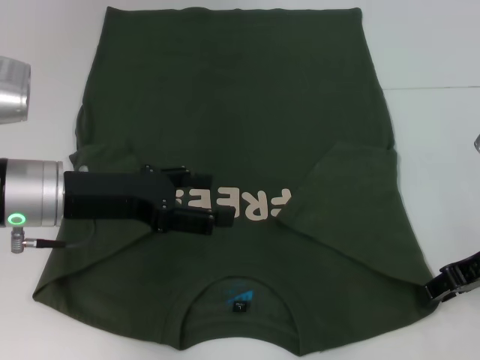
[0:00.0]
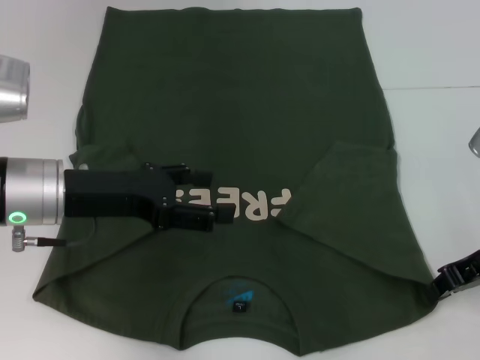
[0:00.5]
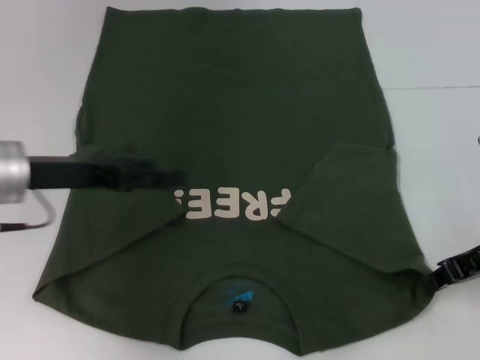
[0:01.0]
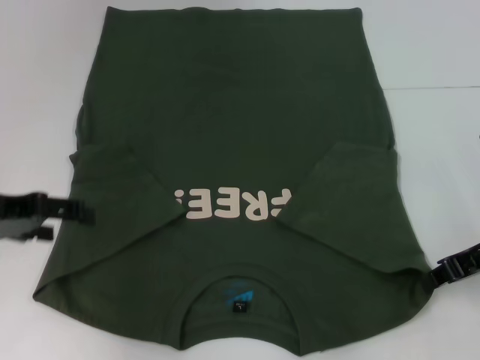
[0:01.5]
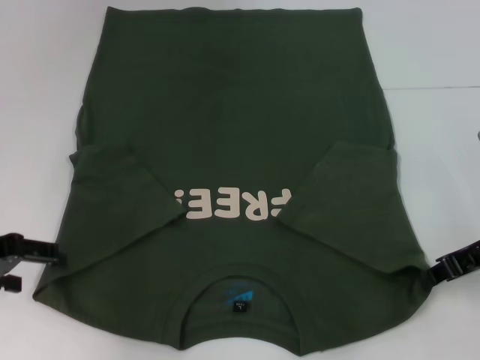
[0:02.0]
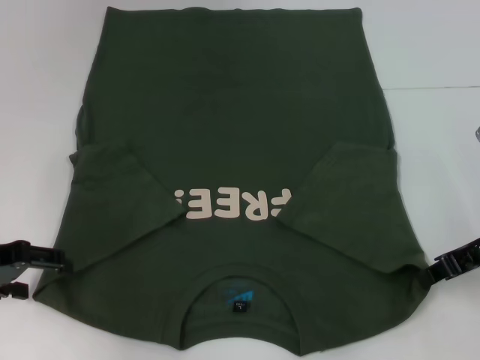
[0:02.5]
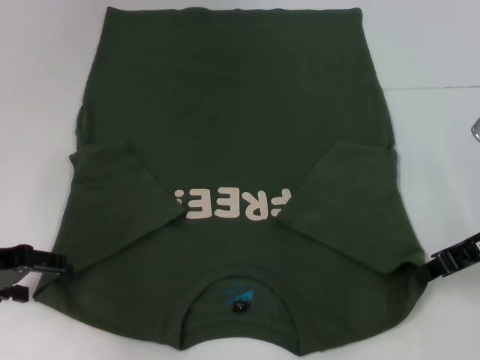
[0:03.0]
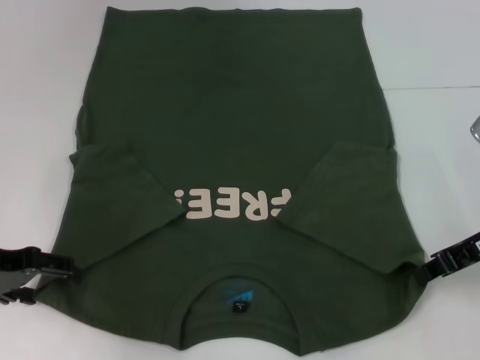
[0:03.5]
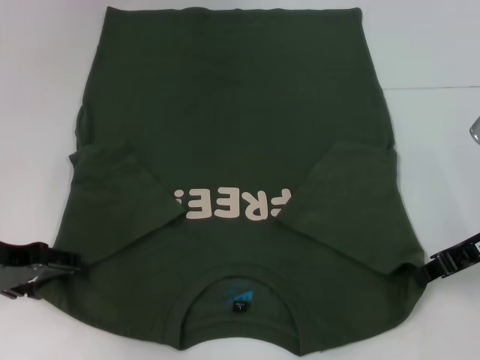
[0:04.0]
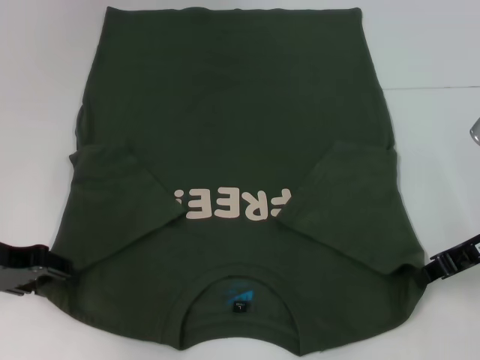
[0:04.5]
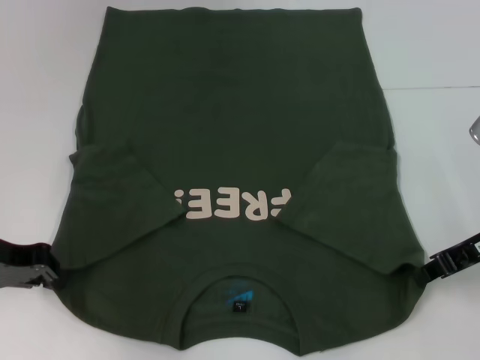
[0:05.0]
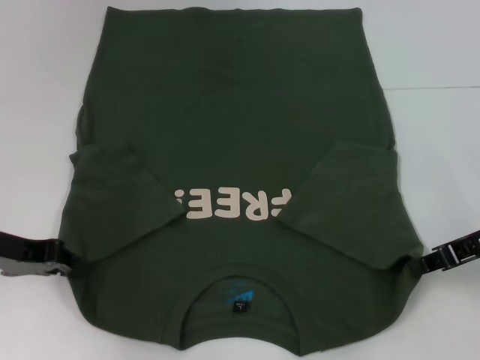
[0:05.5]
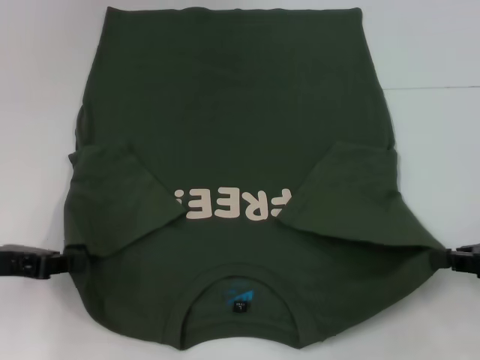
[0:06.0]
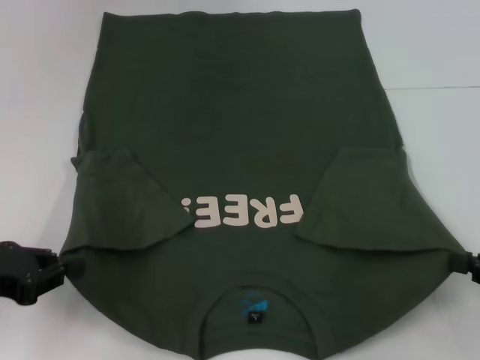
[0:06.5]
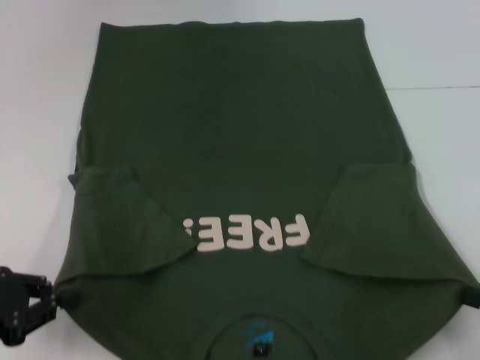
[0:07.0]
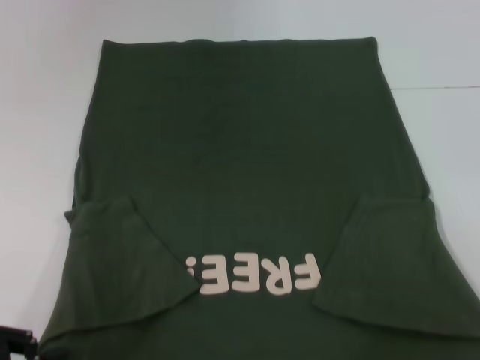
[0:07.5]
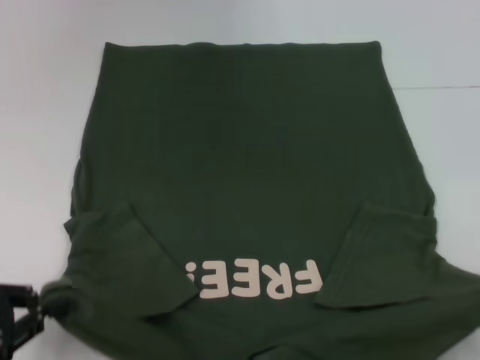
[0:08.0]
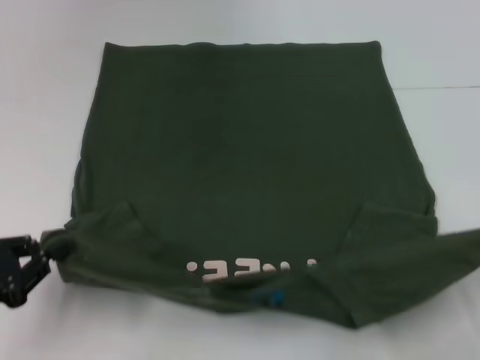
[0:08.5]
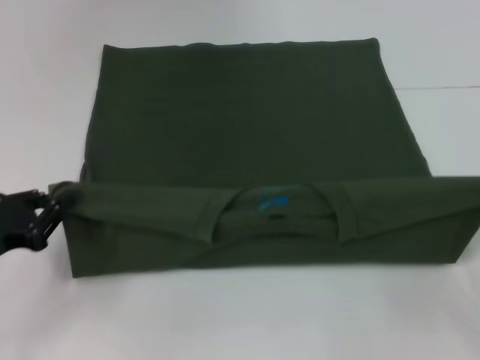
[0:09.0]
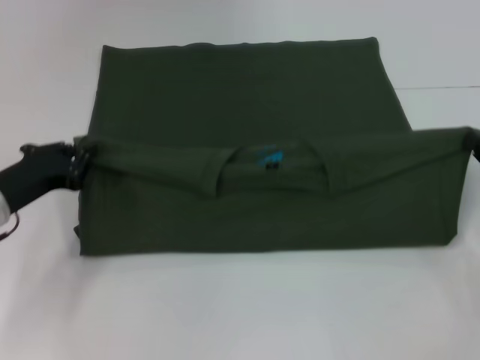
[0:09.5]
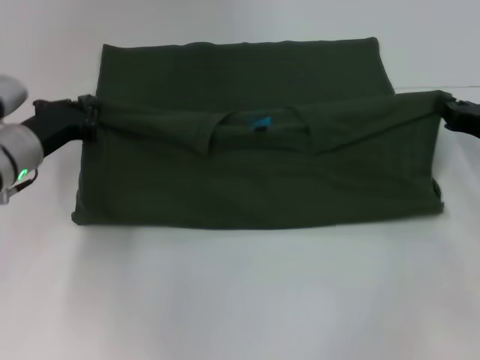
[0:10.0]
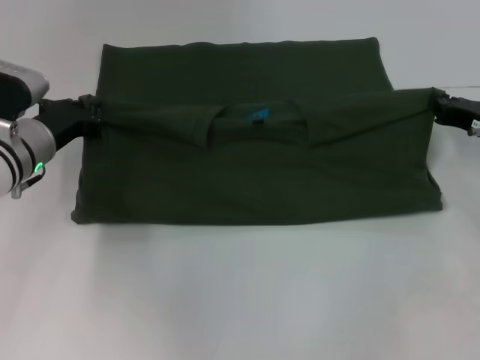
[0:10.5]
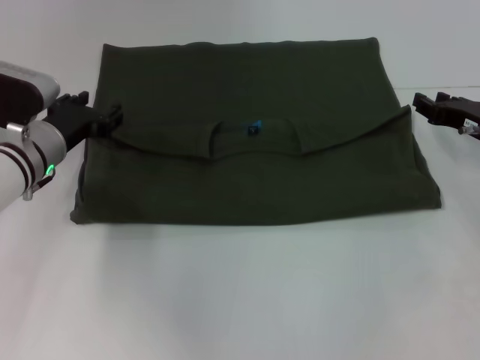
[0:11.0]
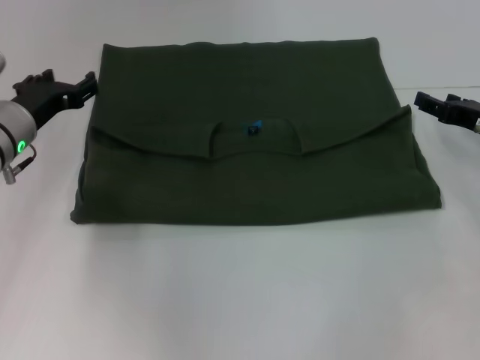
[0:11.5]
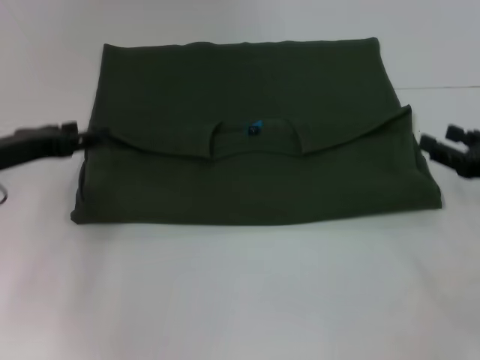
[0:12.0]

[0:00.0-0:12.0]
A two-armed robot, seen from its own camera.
Step, 1.5 to 5.0 s: Grab the bottom left corner with your left hand.
Step, 5.5 to 11.5 s: Fold the clothes with your left hand.
Step, 5.5 to 11.5 s: Fold the clothes with your right hand.
0.0 to 2.0 s: The right gripper closes its fingers; the left gripper is displaced to the left by approximately 10 cm.
2.0 to 4.0 s: The grippers stay close to where they were, moving slightly.
4.0 to 6.0 s: The right gripper heads to the right and backward, covering some 10 cm, while the left gripper closes.
6.0 to 8.0 s: The right gripper moves backward, some 15 cm; the left gripper heads backward, covering some 10 cm.
8.0 to 10.0 s: The right gripper moves forward, some 25 cm. The left gripper moves forward and to the right, about 20 cm.
10.0 to 12.0 s: The right gripper shifts roughly 5 cm backward, and opens up; the left gripper heads to the left, covering approximately 5 cm, and opens.

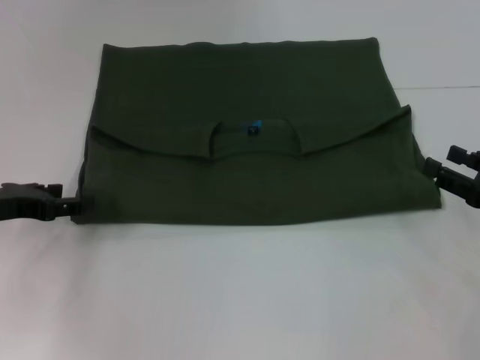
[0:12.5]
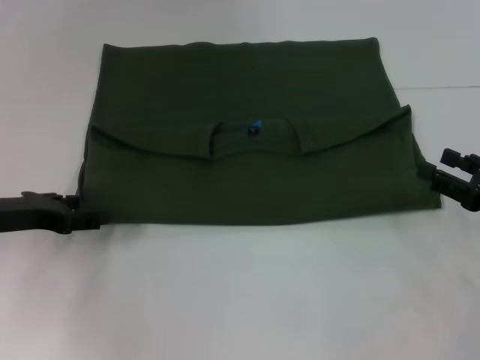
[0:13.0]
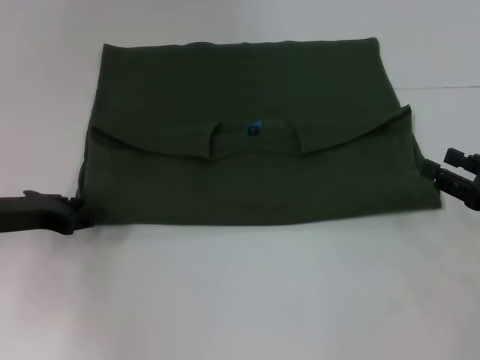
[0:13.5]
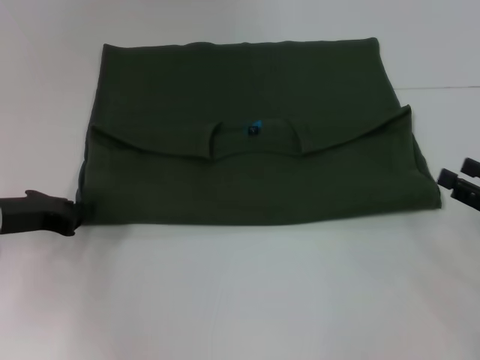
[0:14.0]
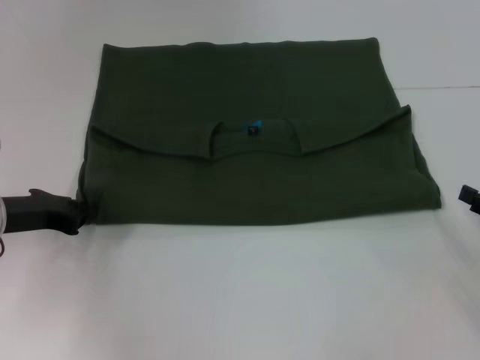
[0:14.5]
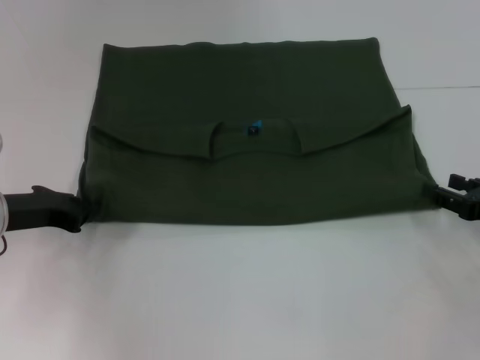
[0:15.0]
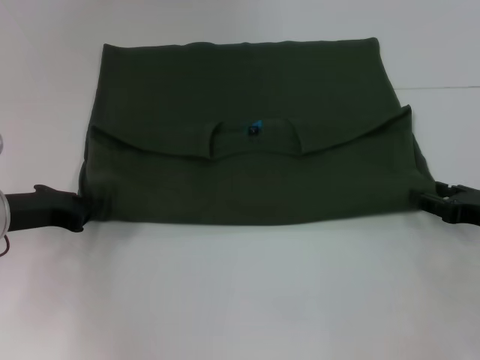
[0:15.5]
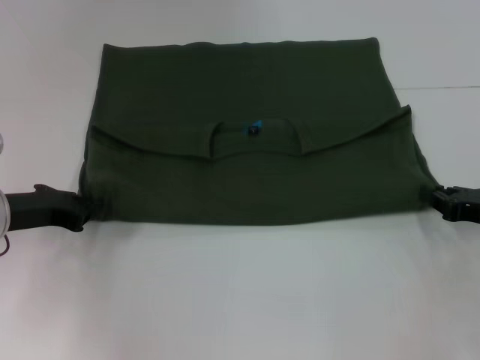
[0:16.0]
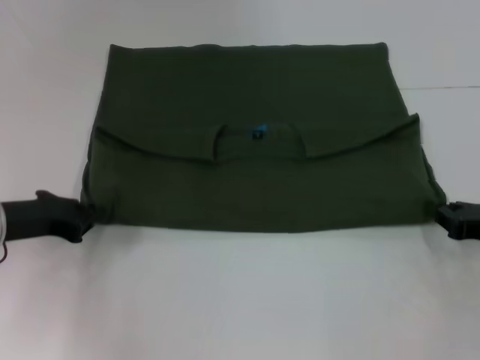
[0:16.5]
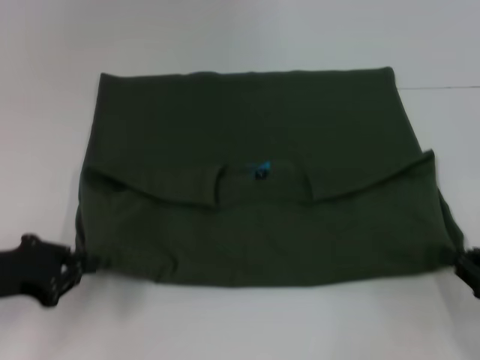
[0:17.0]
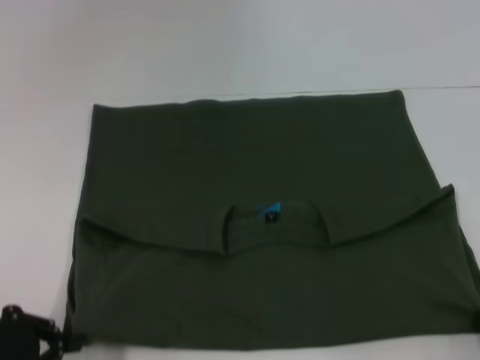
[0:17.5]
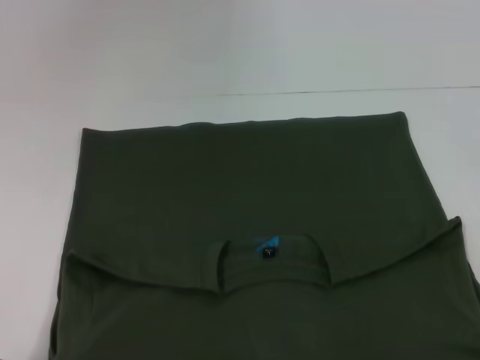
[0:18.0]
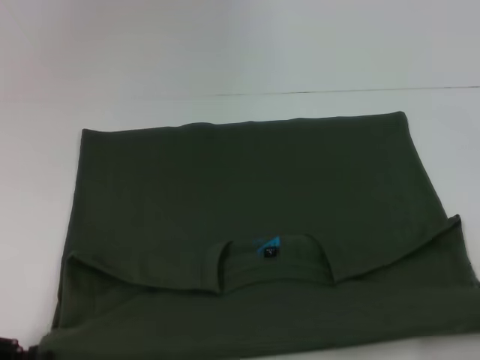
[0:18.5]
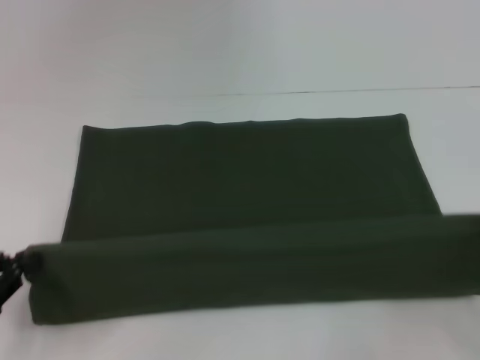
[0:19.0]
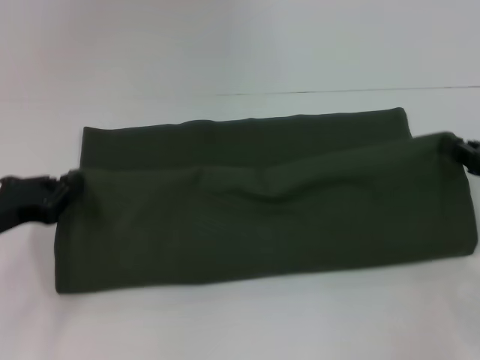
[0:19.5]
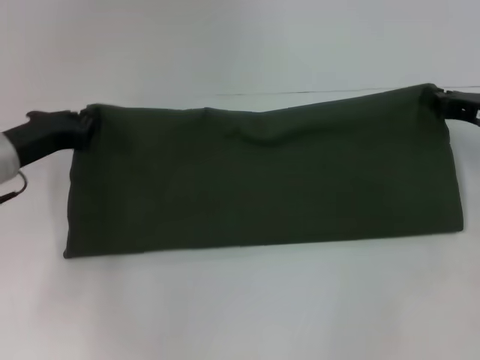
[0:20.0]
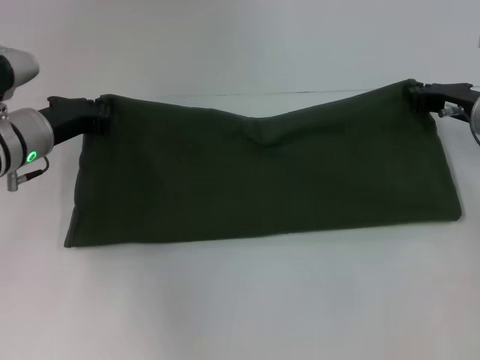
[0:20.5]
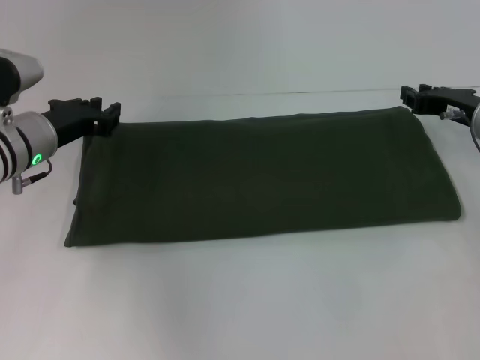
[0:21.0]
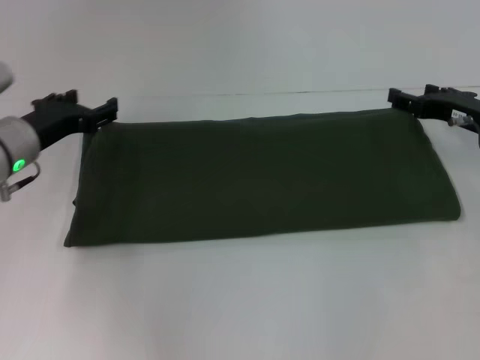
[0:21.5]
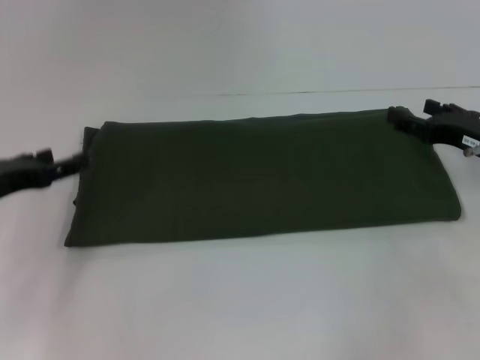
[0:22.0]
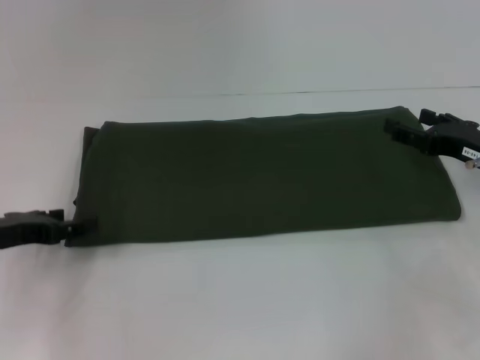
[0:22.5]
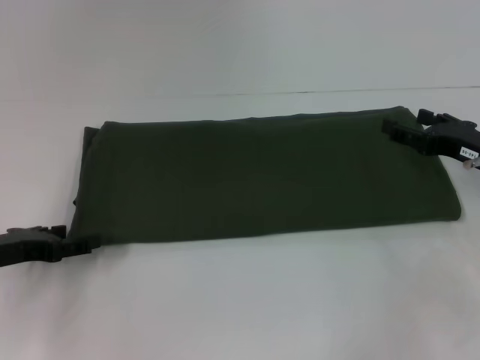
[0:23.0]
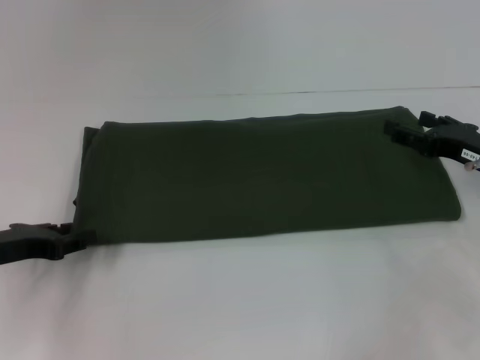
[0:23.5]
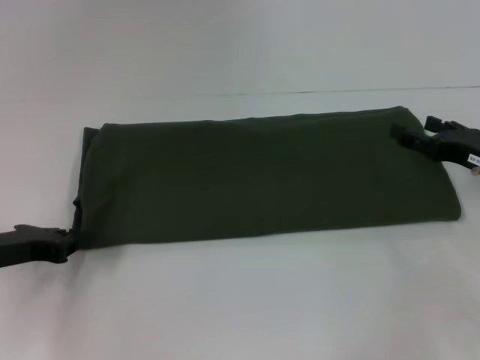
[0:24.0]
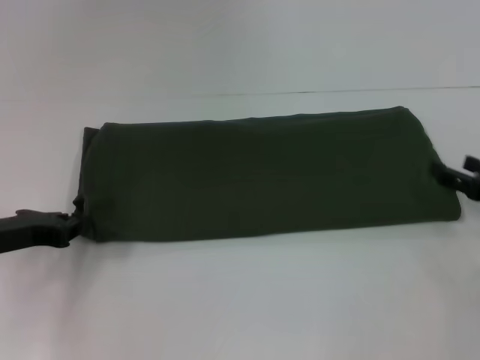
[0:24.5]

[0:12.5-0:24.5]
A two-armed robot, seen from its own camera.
Step, 12.5 to 18.0 s: Pull the clothes with your left hand.
Step, 12.5 to 18.0 s: Pull the clothes with your right hand.
Step, 18.5 to 21.0 s: Fold the clothes with your right hand.
12.5 to 14.5 s: The left gripper closes.
14.5 to 16.5 s: The right gripper moves approximately 5 cm, and closes up.
16.5 to 18.5 s: The two grippers go some 15 cm backward.
18.5 to 20.5 s: The right gripper travels forward by approximately 30 cm; the left gripper heads forward and to the right, covering some 25 cm.
20.5 to 22.5 s: The left gripper shifts about 10 cm backward and to the left, and opens; the right gripper moves backward, roughly 5 cm, and opens its fingers.
22.5 to 24.5 s: The left gripper closes up. Meanwhile the right gripper heads backward, covering roughly 5 cm.

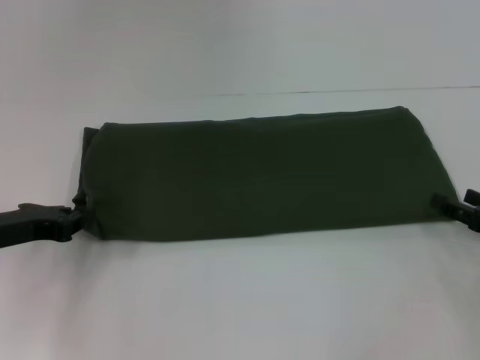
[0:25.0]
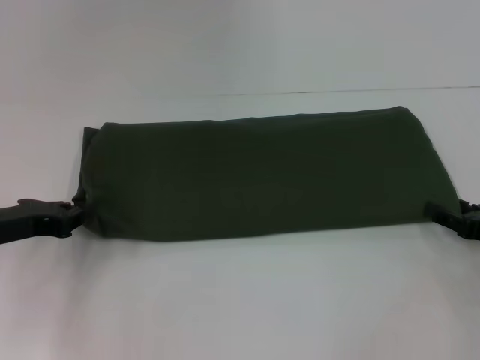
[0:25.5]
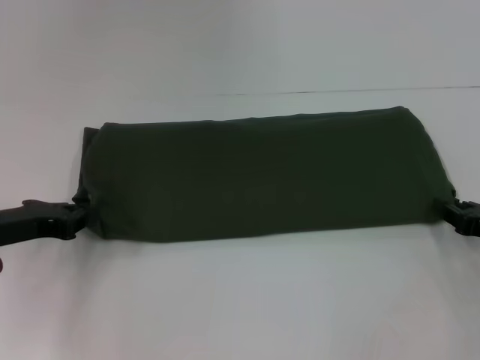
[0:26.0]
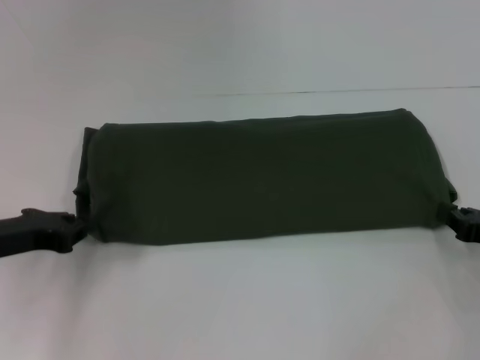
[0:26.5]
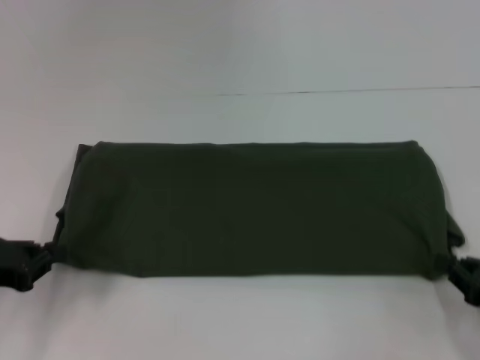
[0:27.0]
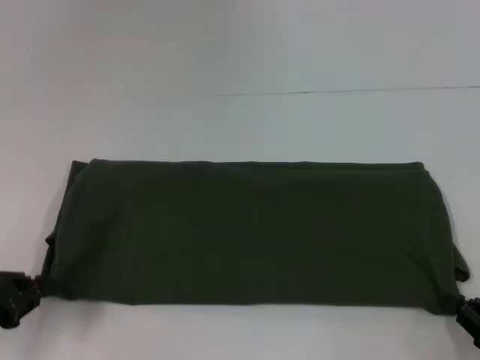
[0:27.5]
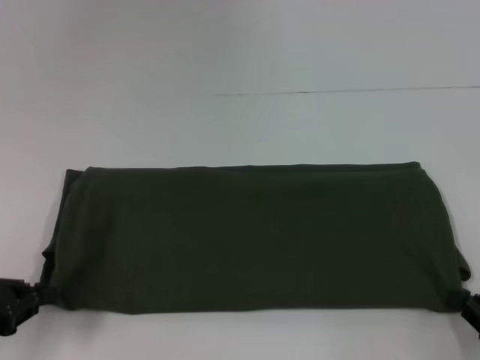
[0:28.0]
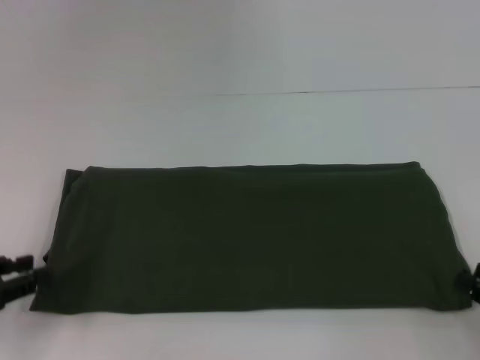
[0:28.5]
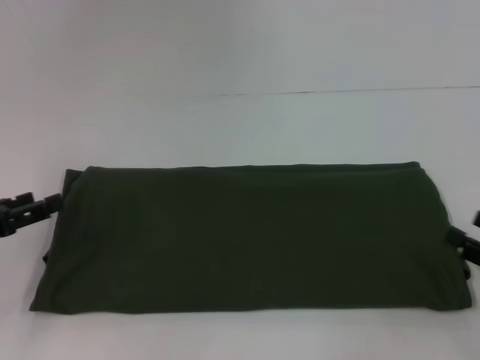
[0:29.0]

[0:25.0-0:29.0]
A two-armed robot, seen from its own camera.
25.0 to 27.0 s: The right gripper shifts about 5 cm backward, and closes up; the left gripper ends up approximately 5 cm from where it was.
27.0 to 29.0 s: The left gripper opens. The right gripper opens.
